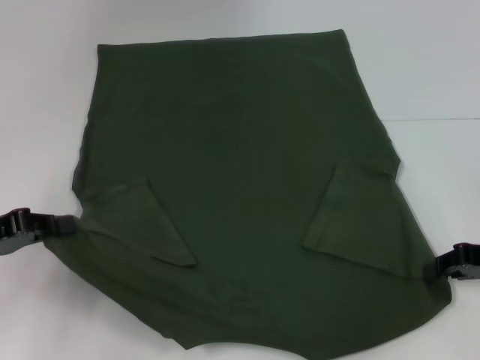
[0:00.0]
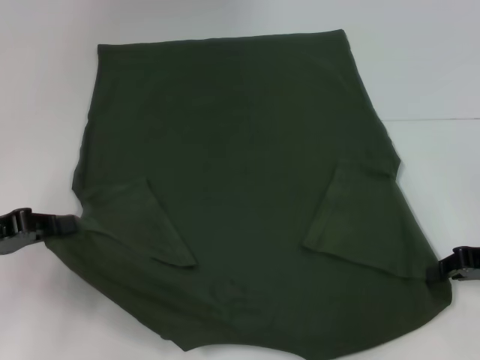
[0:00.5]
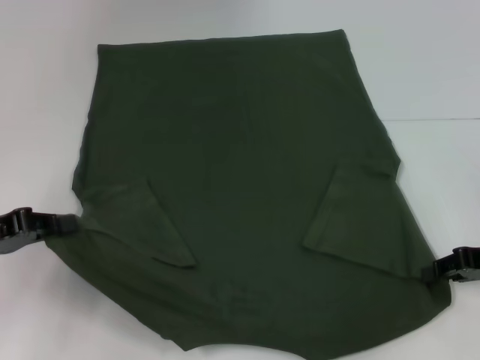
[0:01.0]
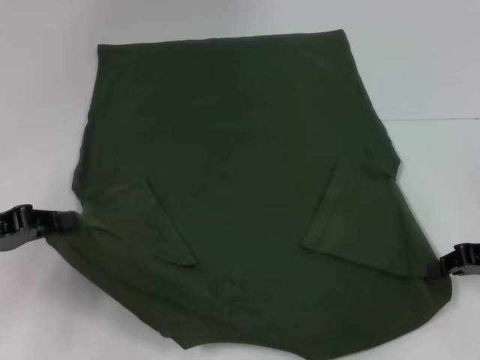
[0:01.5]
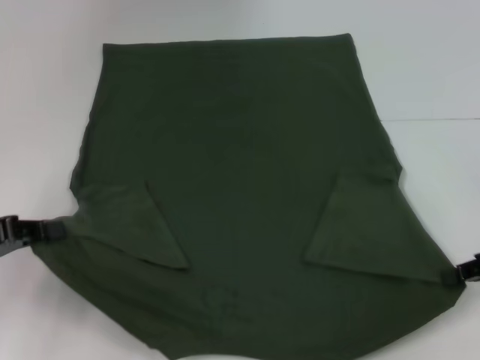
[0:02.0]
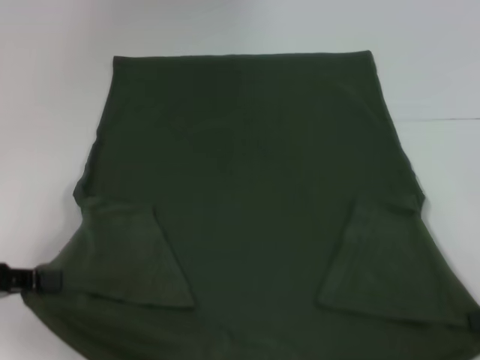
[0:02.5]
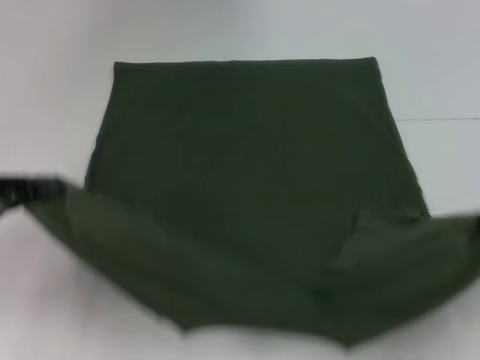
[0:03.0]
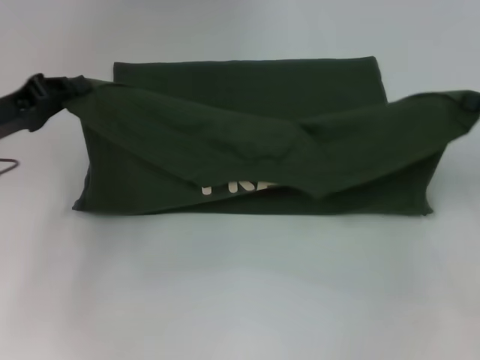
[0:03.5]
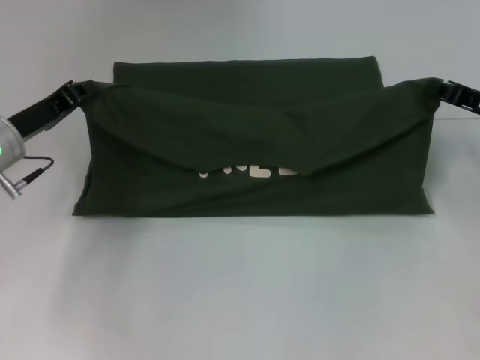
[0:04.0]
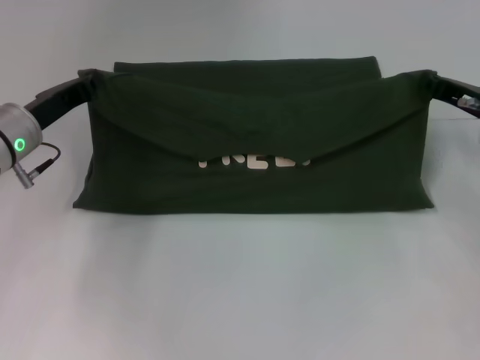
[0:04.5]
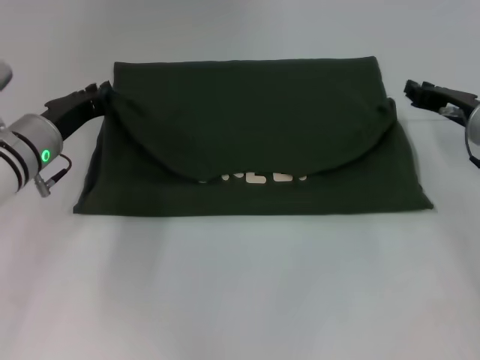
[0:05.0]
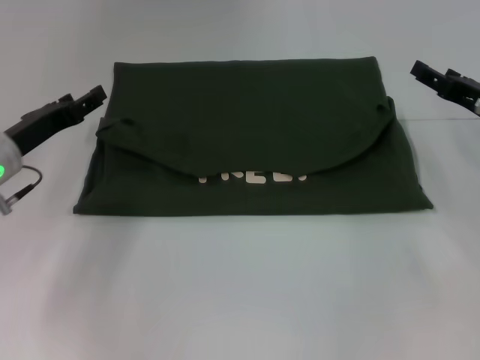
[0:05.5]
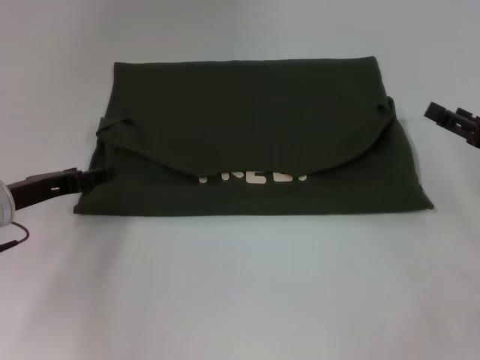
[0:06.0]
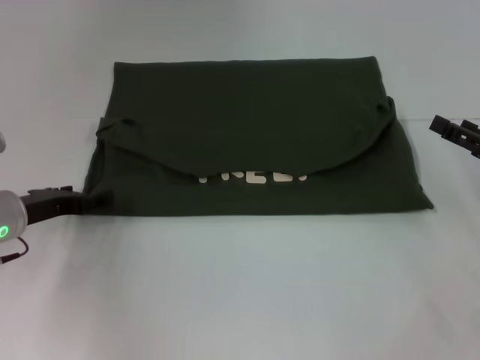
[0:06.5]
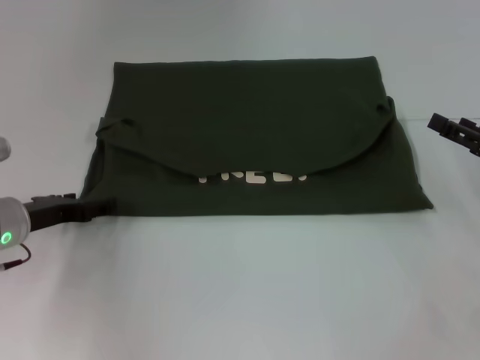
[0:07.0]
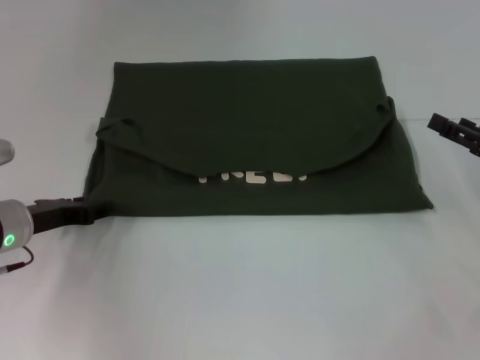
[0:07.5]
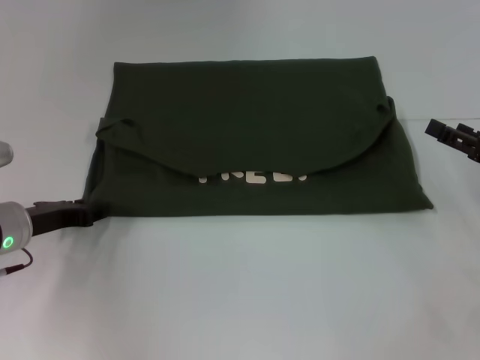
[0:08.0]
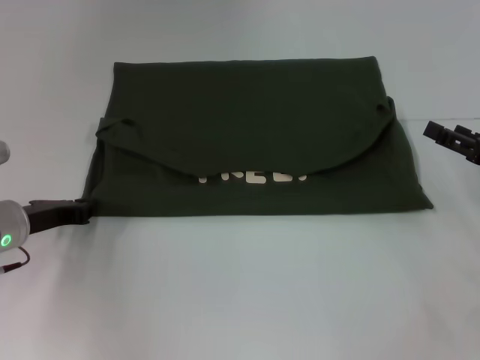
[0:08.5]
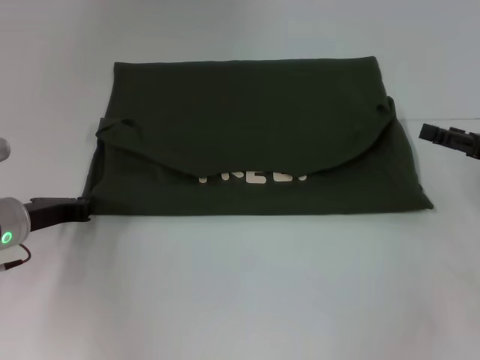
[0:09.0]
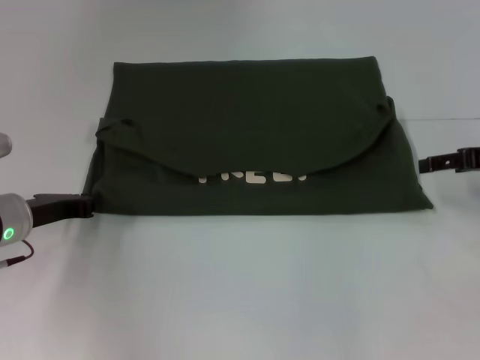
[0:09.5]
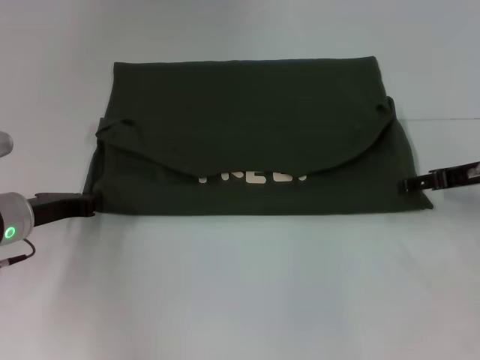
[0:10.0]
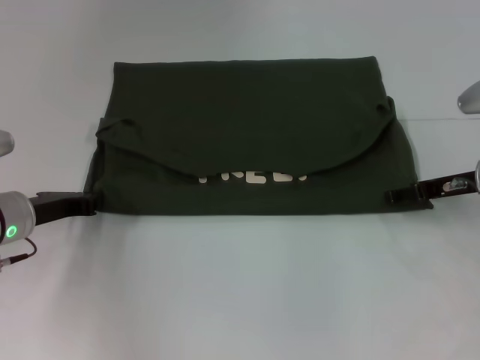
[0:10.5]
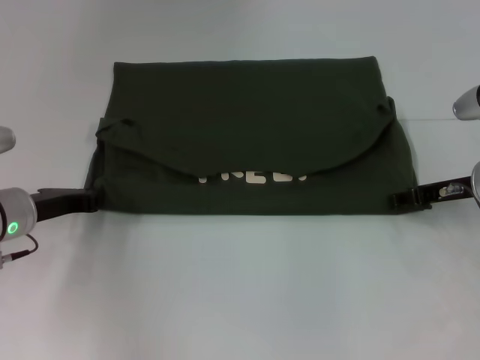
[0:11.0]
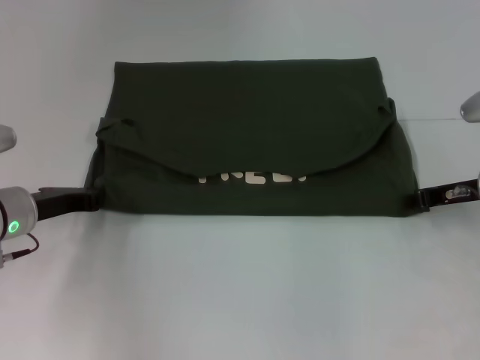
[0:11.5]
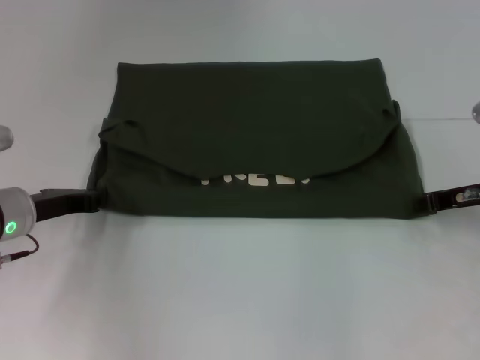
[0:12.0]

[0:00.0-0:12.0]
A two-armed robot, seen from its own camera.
Step, 0:02.0 to 0:05.0: Fold the clothes with your left hand.
Step, 0:02.0 to 0:05.0: Fold the clothes with your right hand.
0:00.0 to 0:02.0: There are only small adjustments of the grippers.
0:02.0 to 0:04.0: The right gripper is displaced forward by approximately 10 cm; the left gripper goes approximately 15 cm forward and to the right.
0:04.0 to 0:06.0: The right gripper travels backward by about 5 cm, and opens. The left gripper shifts by some 5 cm, and opens up.
0:06.0 to 0:08.0: The left gripper closes its fingers.
0:08.0 to 0:10.0: The left gripper closes its fingers; the right gripper is displaced forward by about 5 cm.
0:10.0 to 0:12.0: The right gripper closes up.

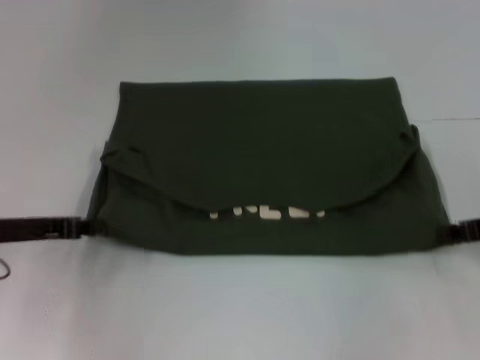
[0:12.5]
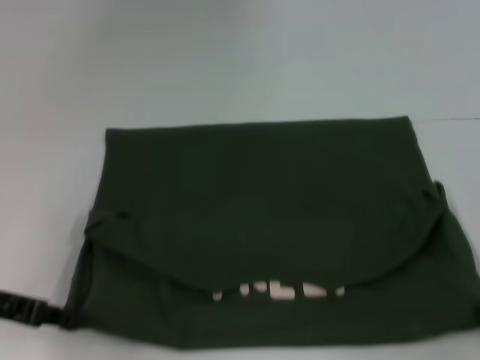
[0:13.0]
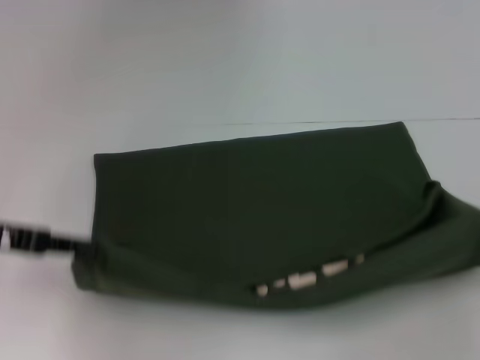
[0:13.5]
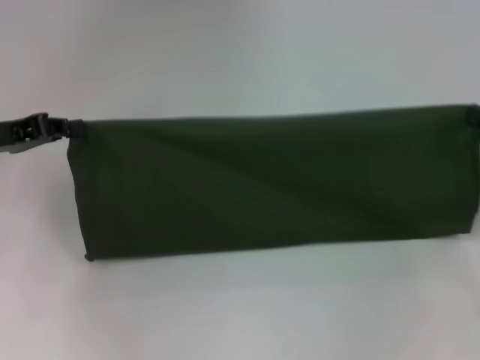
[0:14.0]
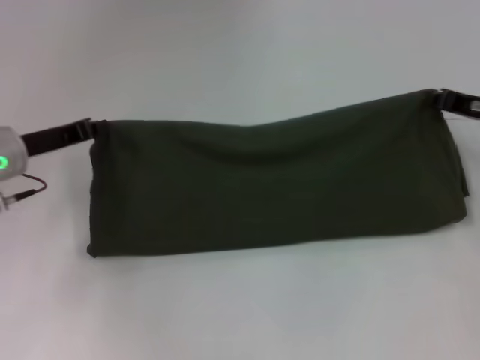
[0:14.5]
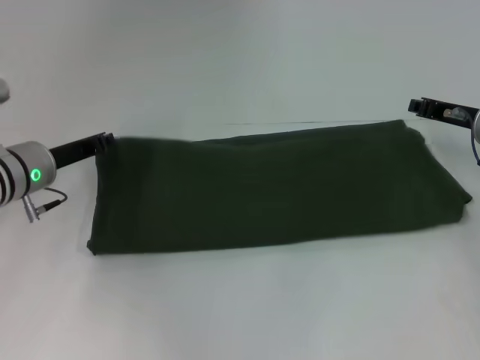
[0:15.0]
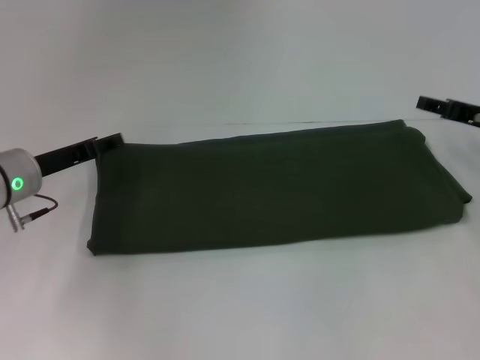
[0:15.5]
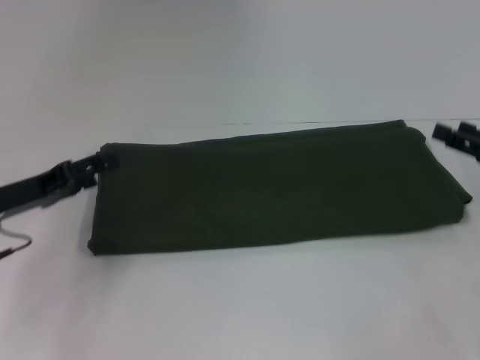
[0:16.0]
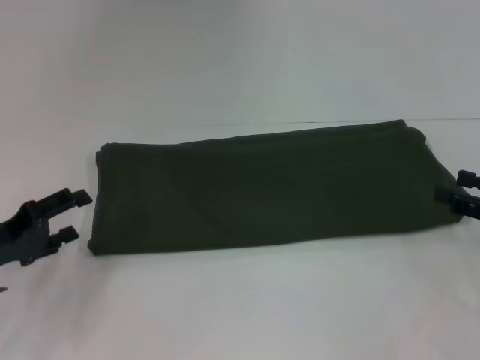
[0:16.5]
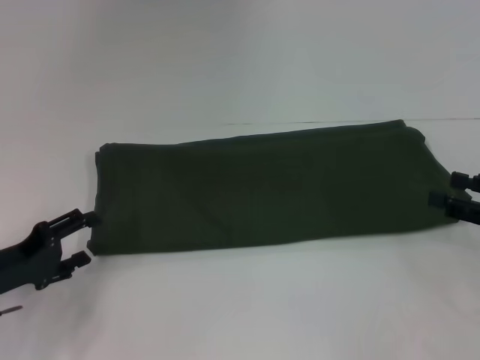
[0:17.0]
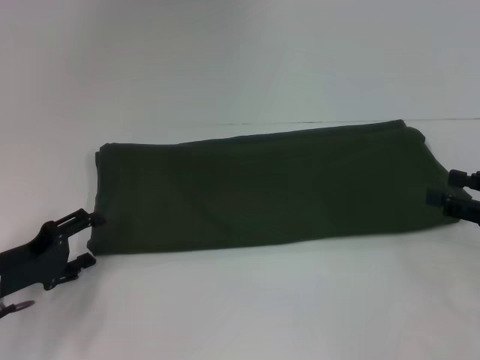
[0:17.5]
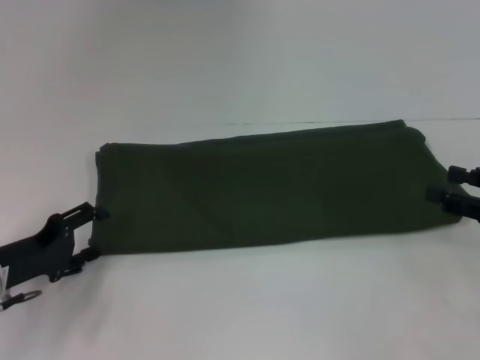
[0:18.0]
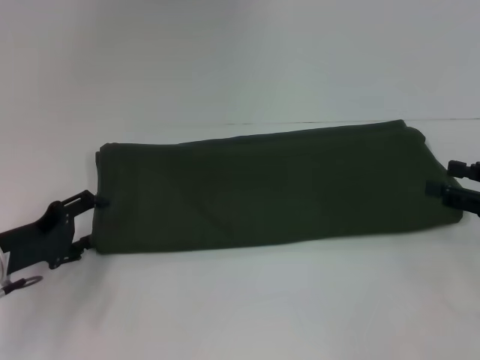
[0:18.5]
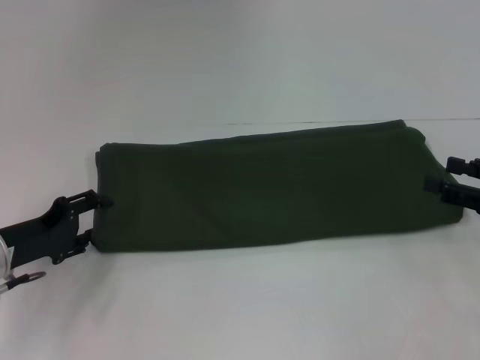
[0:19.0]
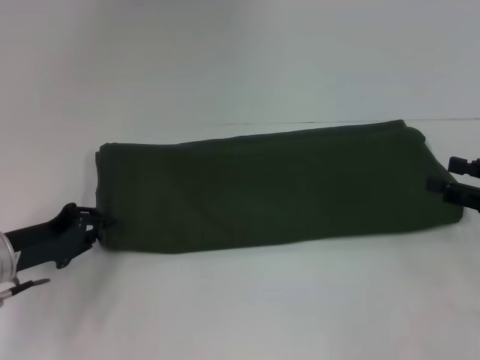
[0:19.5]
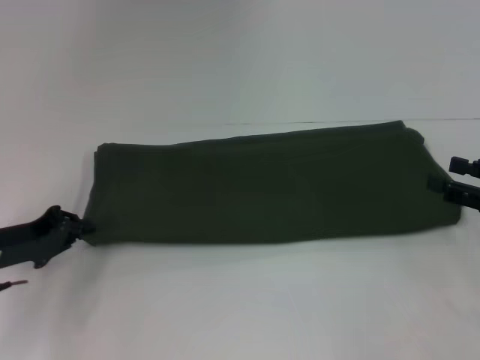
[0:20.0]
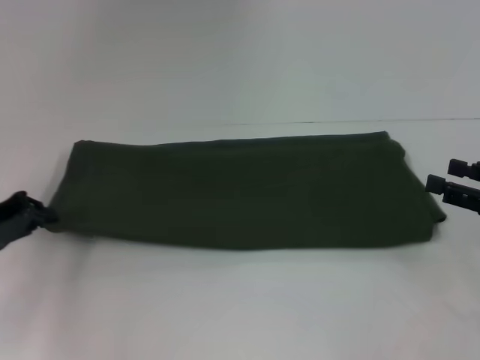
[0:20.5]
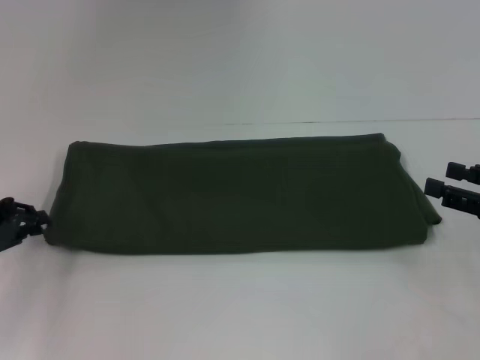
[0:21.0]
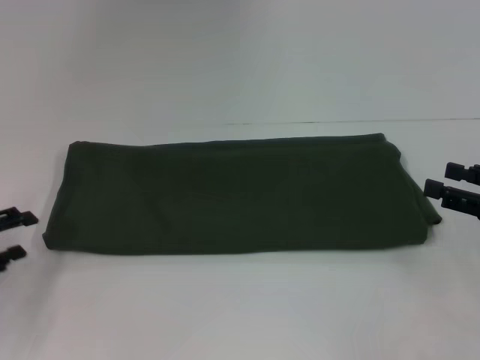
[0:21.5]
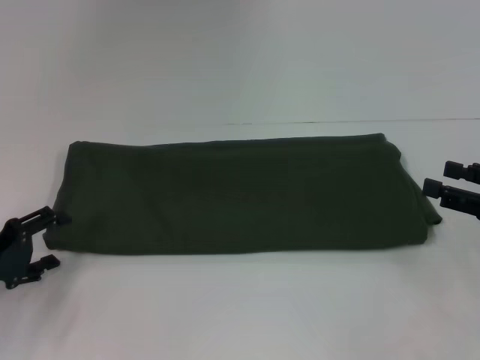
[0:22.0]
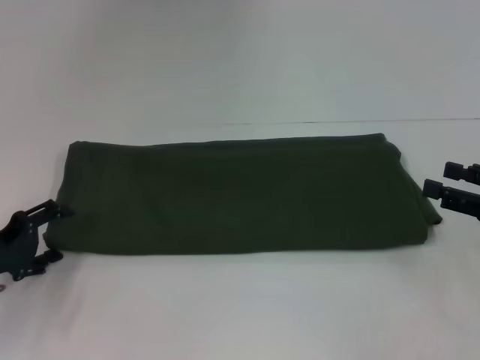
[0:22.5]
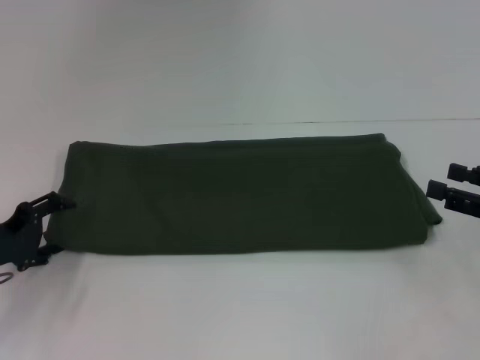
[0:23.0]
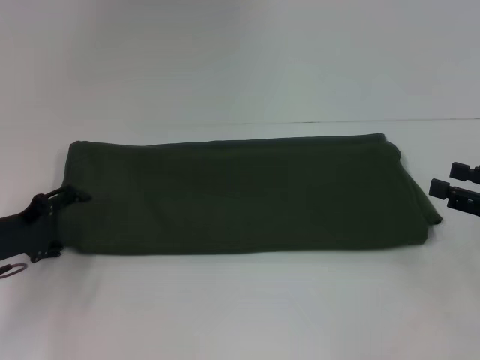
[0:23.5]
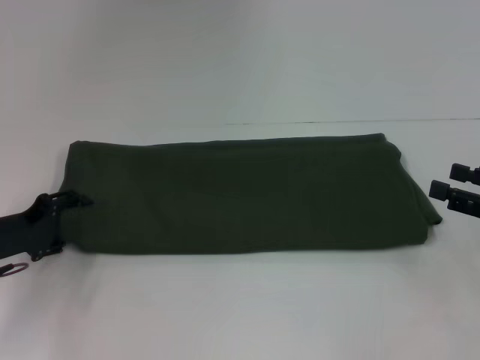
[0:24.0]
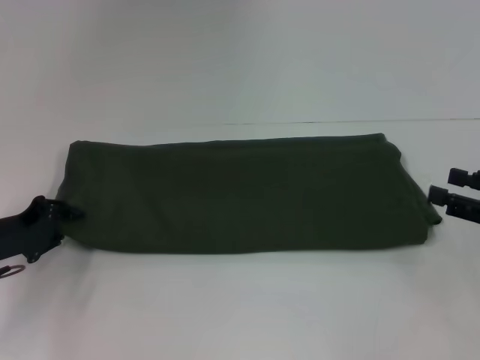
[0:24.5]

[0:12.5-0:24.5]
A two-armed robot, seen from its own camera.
Step, 0:13.5 to 0:15.0: Fold the clothes with your right hand.
0:12.5 to 0:14.5: Both grippers move forward, some 5 cm.
0:14.5 to 0:16.5: Both grippers travel together backward, some 10 cm. The right gripper opens its fingers. Meanwhile the left gripper opens its fingers.
0:16.5 to 0:18.5: The grippers move only a little.
0:18.5 to 0:20.5: The left gripper shifts by roughly 5 cm, and closes its fingers.
0:20.5 to 0:22.5: The left gripper moves approximately 5 cm, and opens.
0:22.5 to 0:24.5: The left gripper closes its fingers.

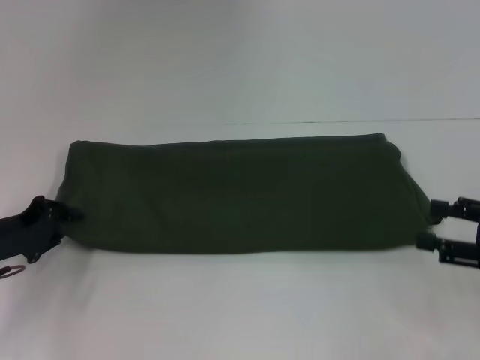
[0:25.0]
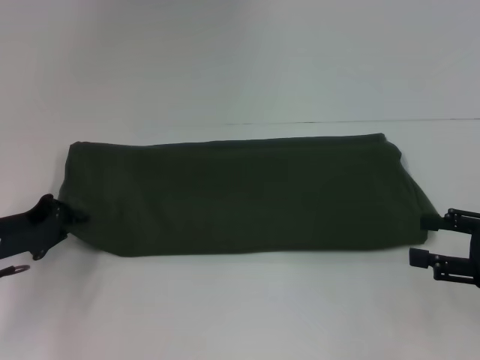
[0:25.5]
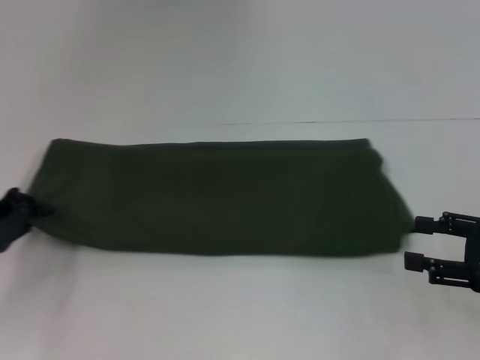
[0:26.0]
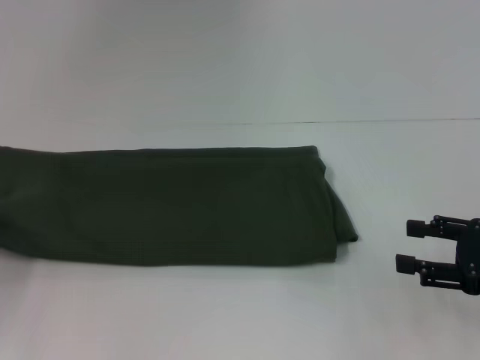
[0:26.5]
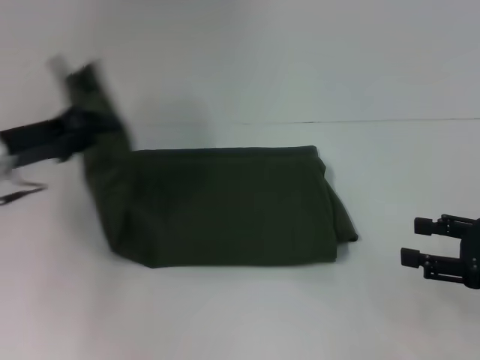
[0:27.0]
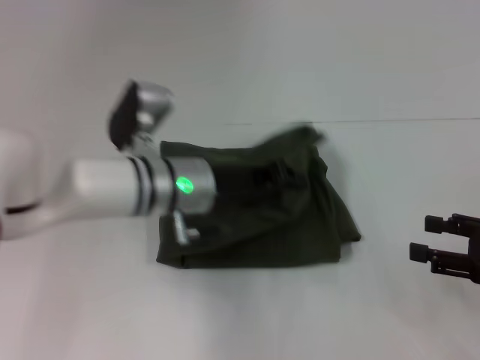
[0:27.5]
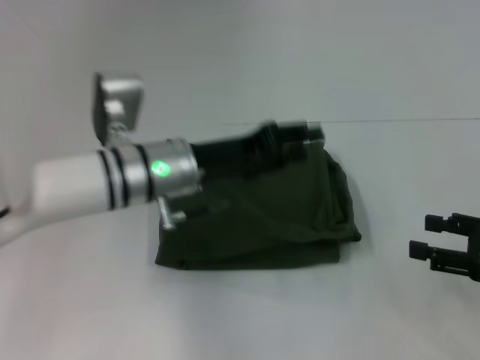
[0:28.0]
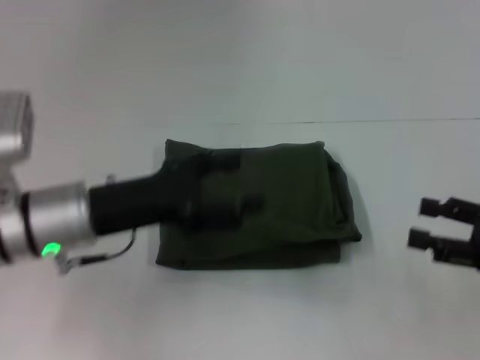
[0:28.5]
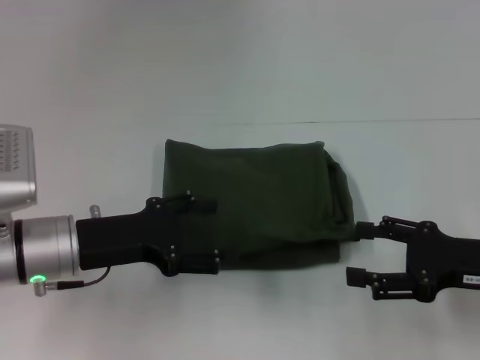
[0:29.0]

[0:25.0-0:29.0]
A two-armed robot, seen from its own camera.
Step, 0:25.0 to 0:27.5: Fold the clothes with your left hand.
0:25.0 to 0:27.0: The left gripper goes about 10 cm upward, and reaches about 10 cm to the left, then returns.
0:27.0 to 0:29.0: The right gripper shifts approximately 5 cm to the left, while the left gripper goes about 10 cm to the right and backward, and opens.
